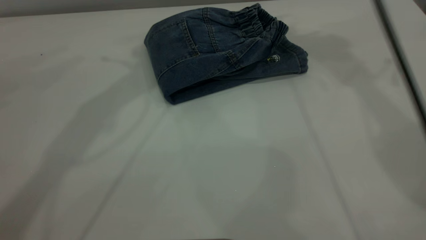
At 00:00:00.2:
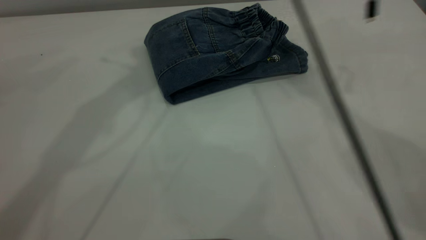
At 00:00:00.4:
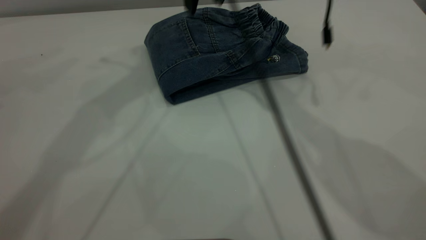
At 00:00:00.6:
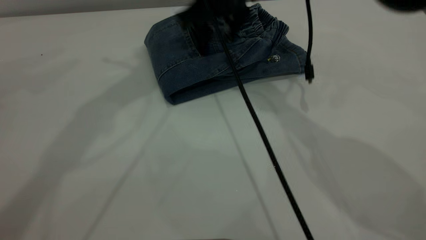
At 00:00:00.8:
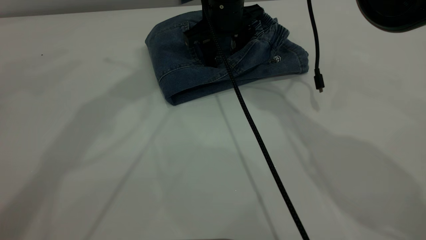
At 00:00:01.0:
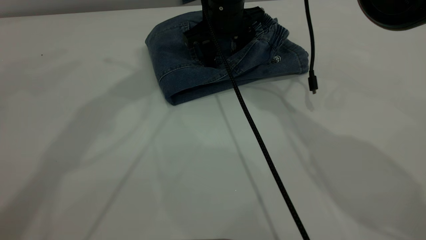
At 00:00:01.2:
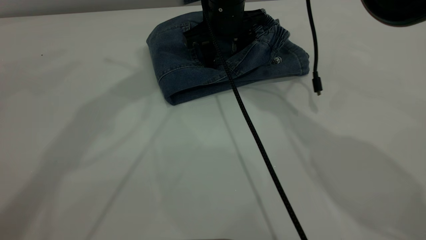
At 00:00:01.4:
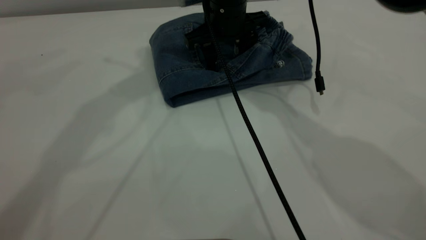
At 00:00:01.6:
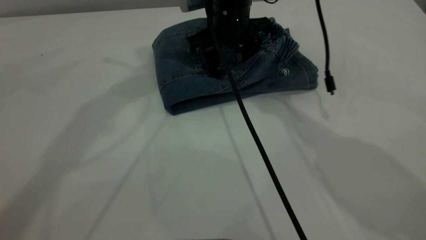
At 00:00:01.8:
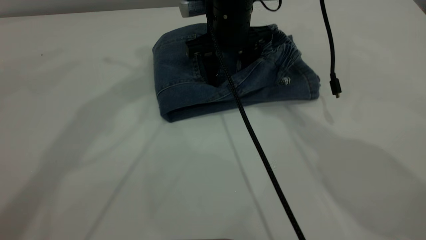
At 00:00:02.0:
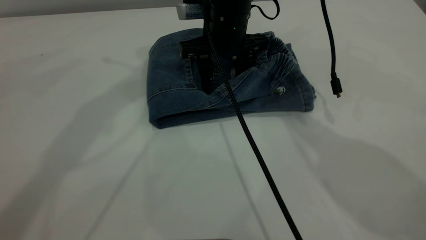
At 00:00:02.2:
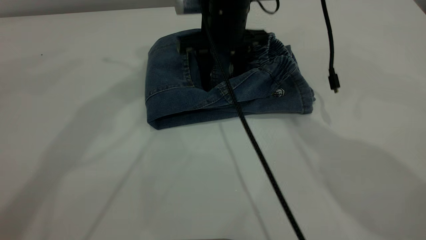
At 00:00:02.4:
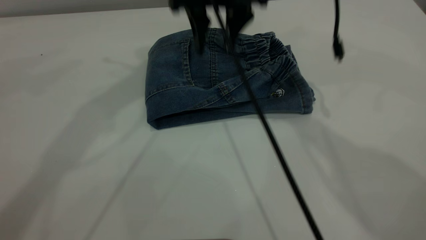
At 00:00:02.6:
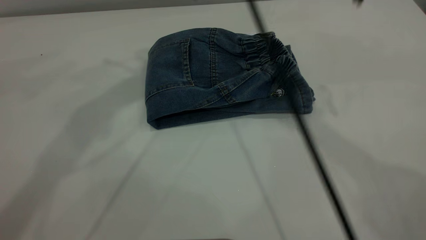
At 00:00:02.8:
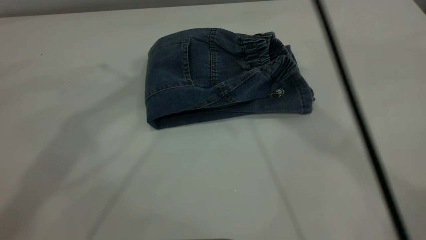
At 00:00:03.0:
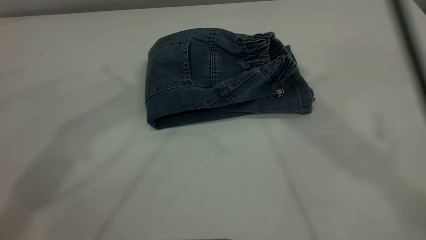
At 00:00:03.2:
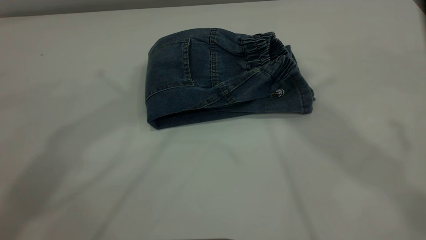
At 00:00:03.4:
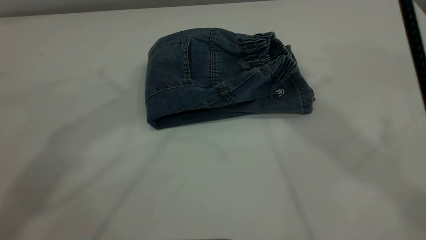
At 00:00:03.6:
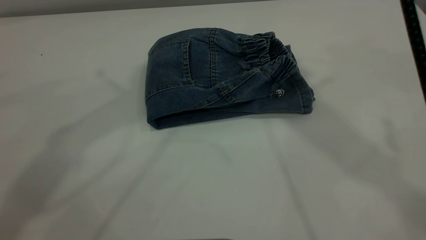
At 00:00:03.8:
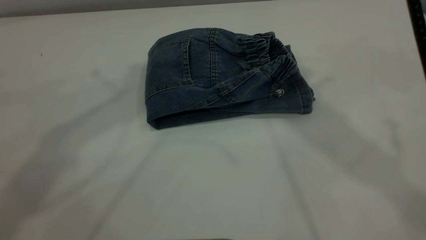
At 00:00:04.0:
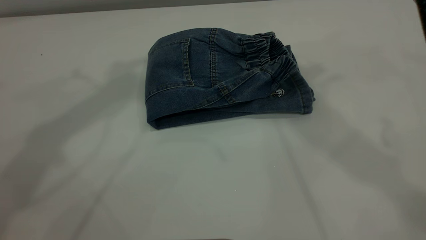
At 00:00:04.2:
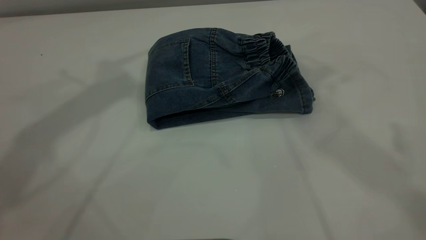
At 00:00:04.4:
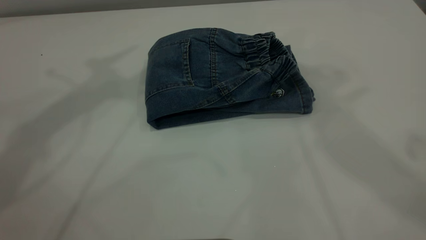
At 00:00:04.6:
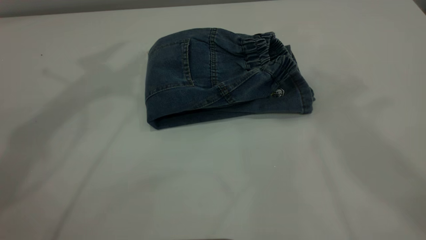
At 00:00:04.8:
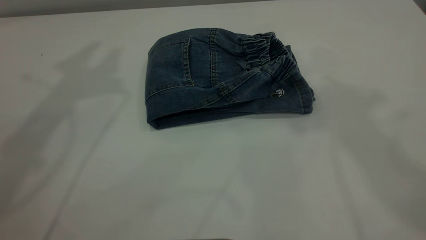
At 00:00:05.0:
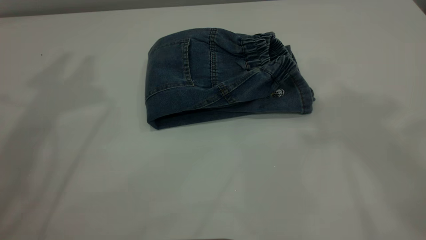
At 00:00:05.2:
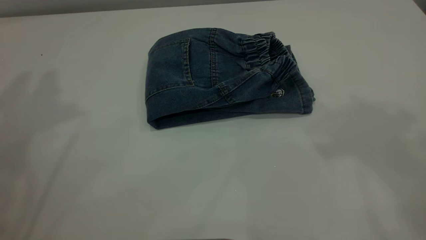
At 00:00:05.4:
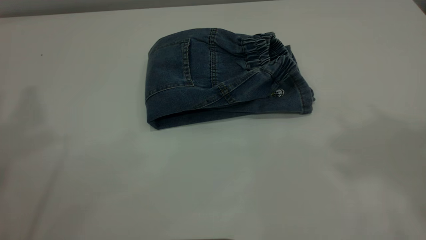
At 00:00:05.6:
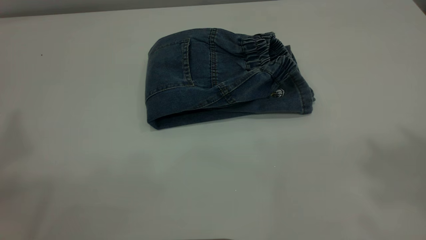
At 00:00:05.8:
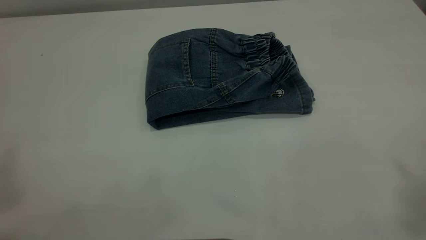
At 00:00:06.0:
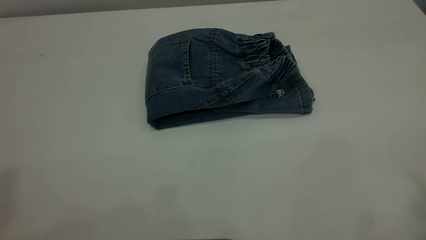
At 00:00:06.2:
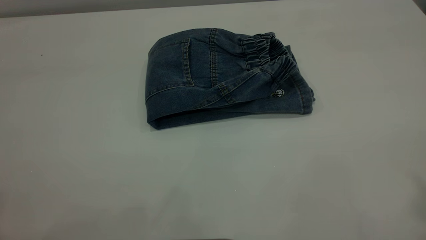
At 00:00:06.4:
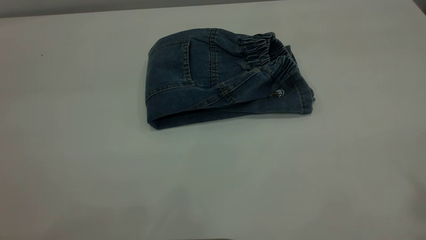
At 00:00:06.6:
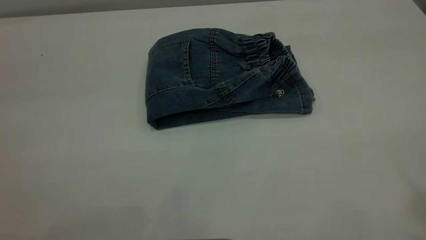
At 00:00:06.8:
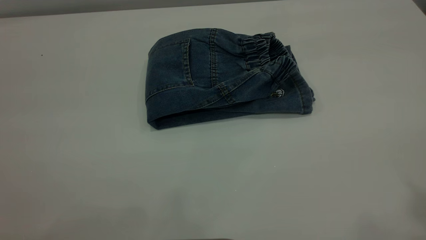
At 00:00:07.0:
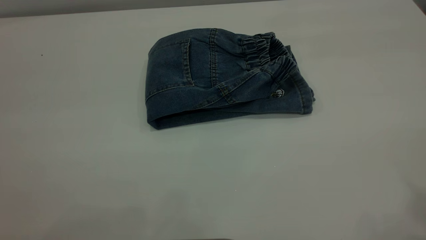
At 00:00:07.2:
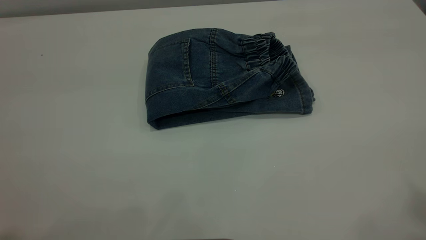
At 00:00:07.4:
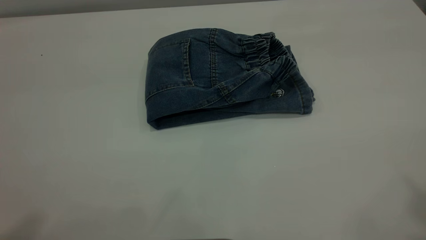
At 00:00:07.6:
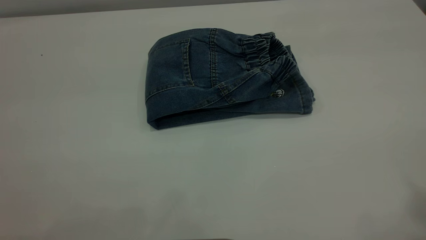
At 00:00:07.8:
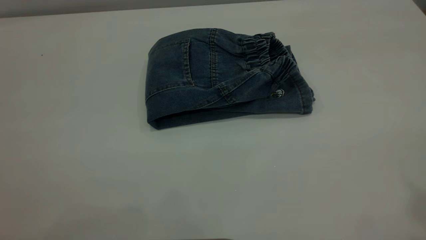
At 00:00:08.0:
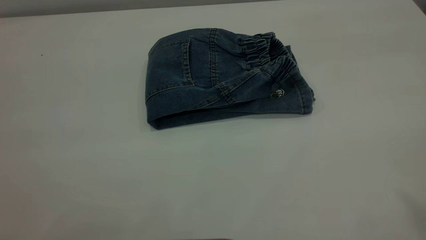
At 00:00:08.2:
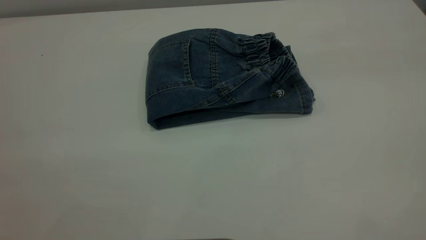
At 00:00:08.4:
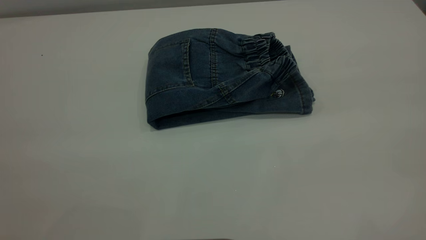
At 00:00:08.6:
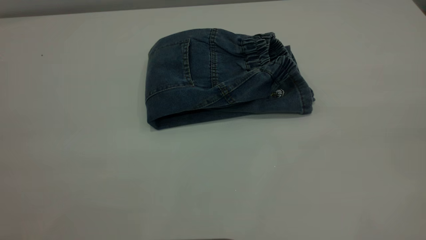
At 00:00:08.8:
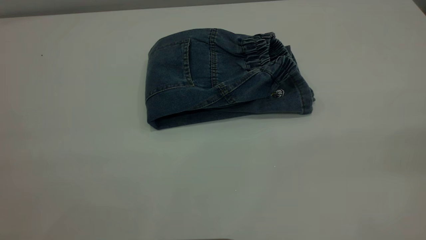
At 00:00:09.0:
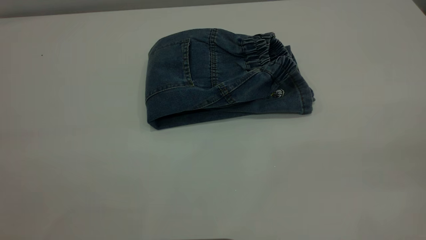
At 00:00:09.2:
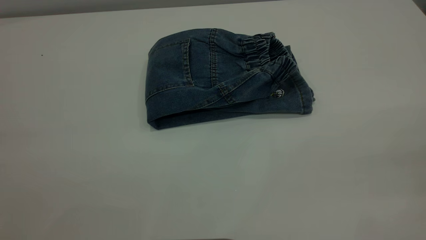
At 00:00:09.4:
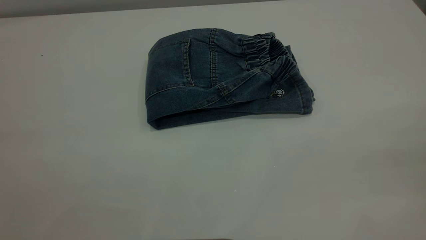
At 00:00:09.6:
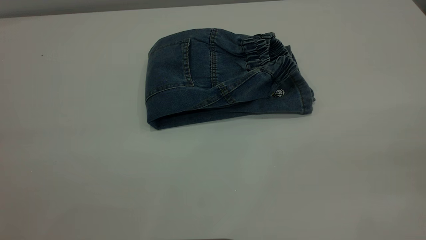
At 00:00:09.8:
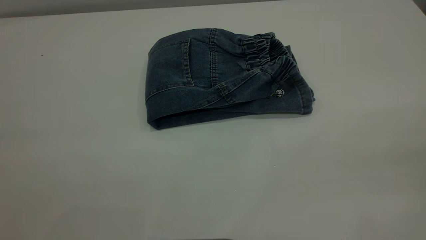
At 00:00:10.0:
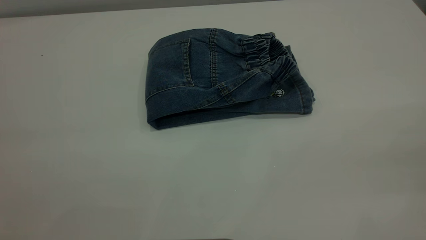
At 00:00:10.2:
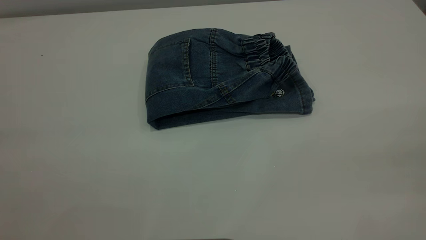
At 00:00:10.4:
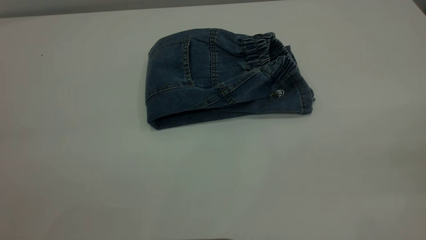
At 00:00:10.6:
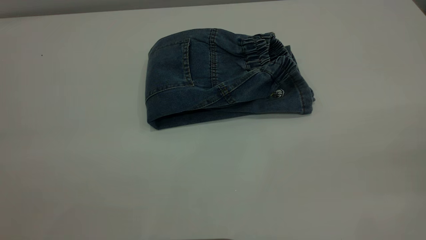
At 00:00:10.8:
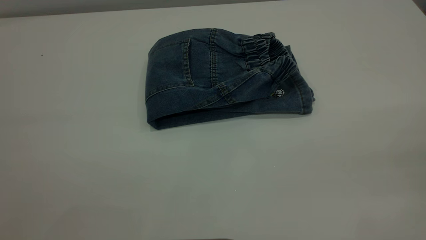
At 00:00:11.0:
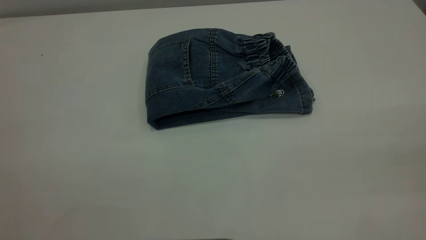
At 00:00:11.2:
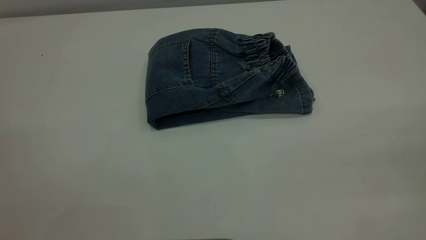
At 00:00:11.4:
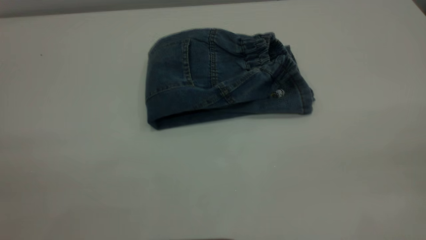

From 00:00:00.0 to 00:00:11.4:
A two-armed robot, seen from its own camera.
From 00:00:00.0 to 00:00:01.4: The right gripper heads downward and to the left, covering roughly 20 cm.
From 00:00:01.4 to 00:00:02.8: The right gripper heads upward, covering approximately 30 cm; the left gripper is displaced upward by roughly 5 cm.
From 00:00:02.8 to 00:00:04.2: The left gripper moves to the left, approximately 5 cm. The right gripper heads upward, covering approximately 10 cm.

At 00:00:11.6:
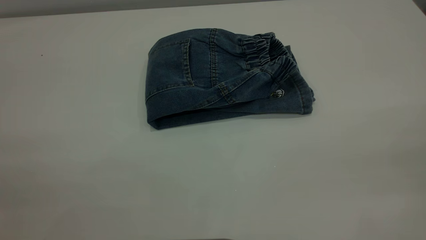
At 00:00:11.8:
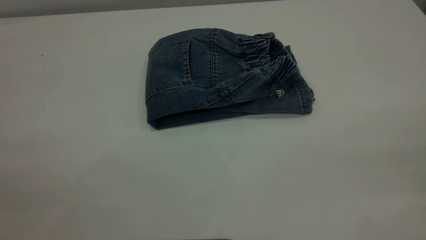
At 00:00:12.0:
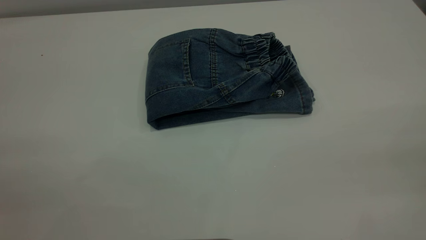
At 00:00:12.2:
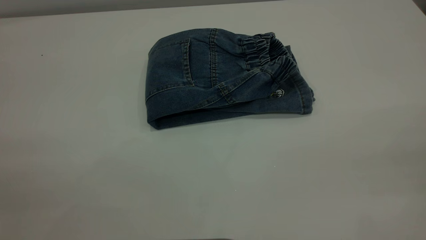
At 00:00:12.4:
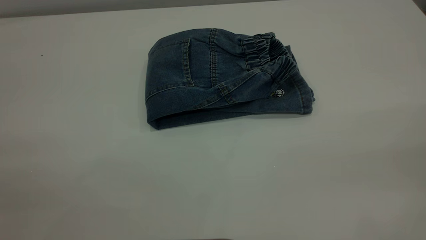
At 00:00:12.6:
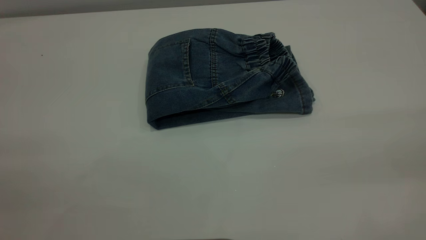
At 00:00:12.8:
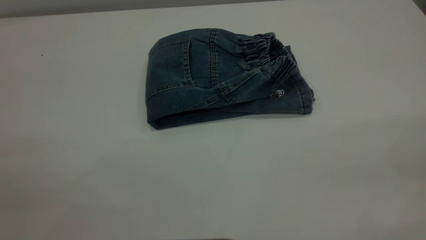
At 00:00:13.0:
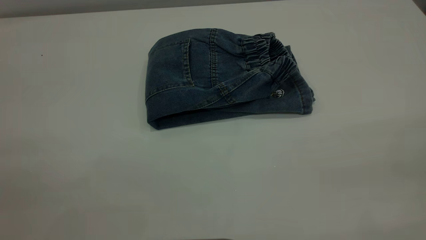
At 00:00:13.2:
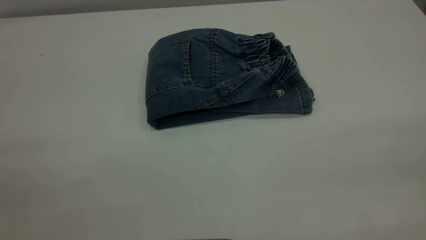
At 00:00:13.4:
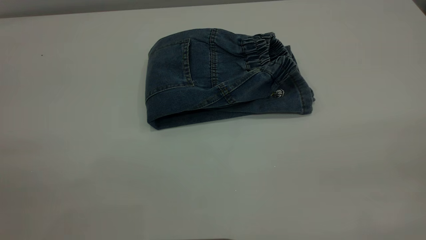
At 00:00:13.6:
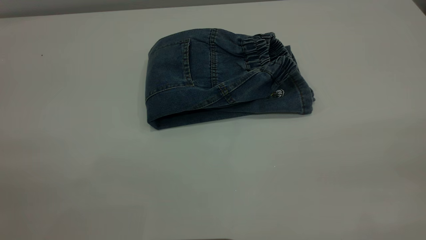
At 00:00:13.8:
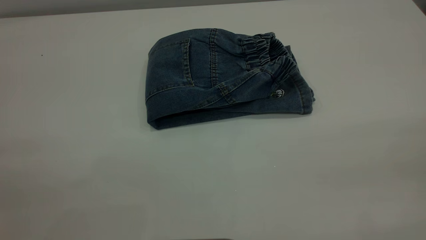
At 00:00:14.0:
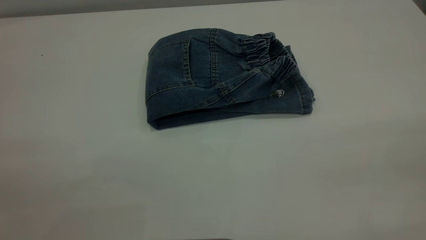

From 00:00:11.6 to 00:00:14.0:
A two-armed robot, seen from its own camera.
From 00:00:12.8 to 00:00:14.0: Both grippers stay put.
